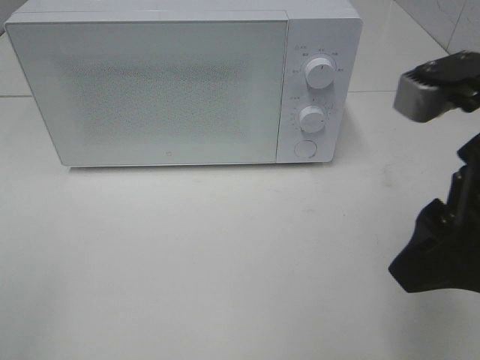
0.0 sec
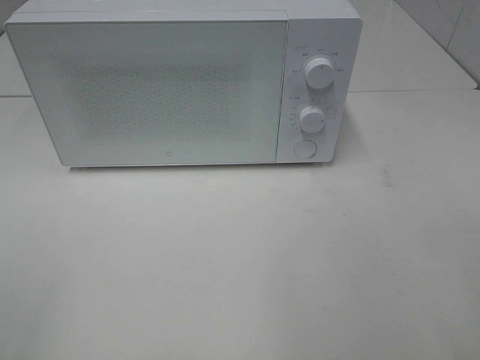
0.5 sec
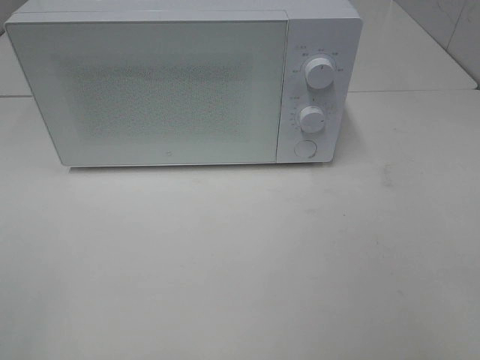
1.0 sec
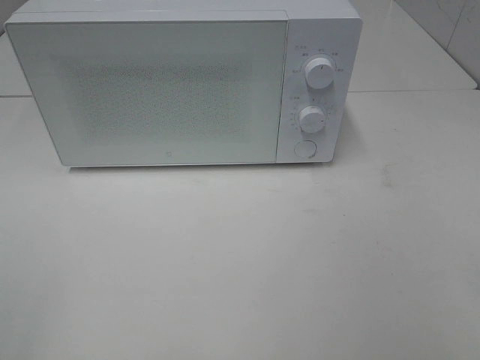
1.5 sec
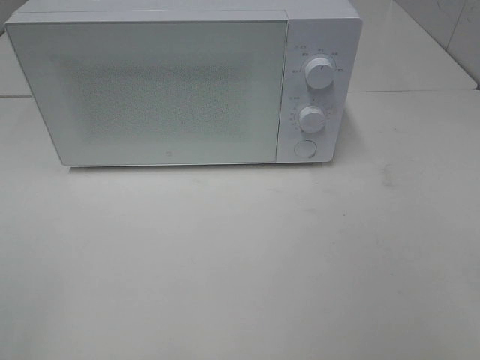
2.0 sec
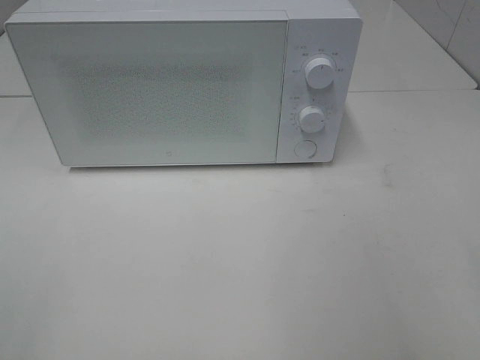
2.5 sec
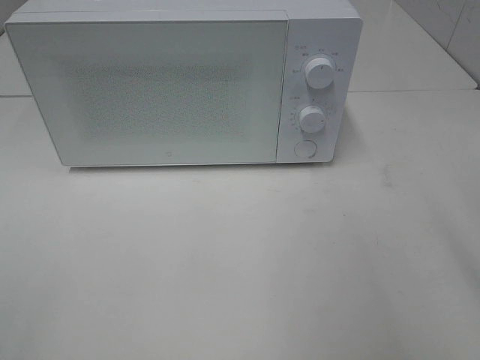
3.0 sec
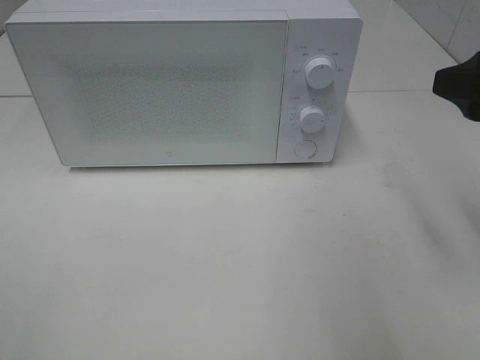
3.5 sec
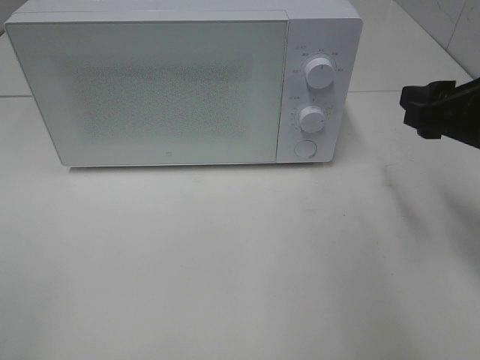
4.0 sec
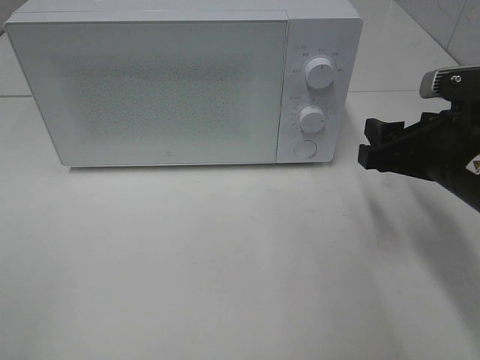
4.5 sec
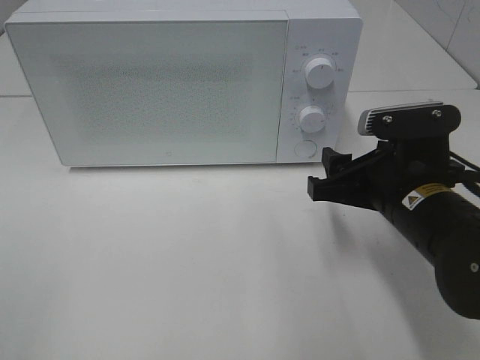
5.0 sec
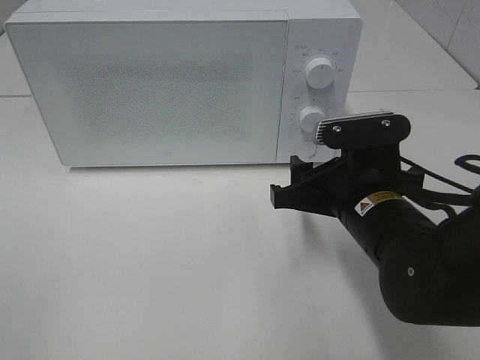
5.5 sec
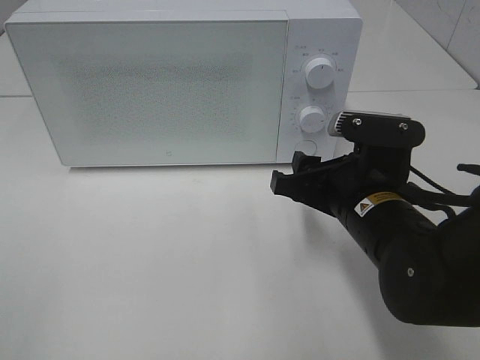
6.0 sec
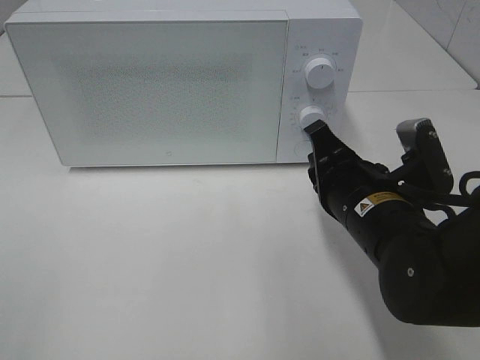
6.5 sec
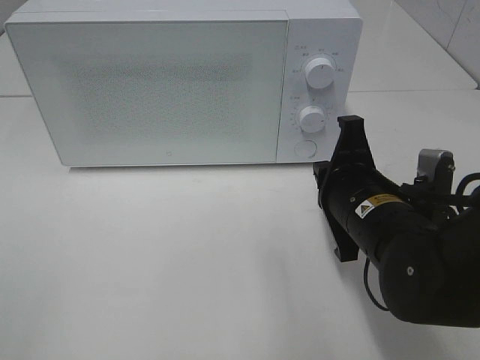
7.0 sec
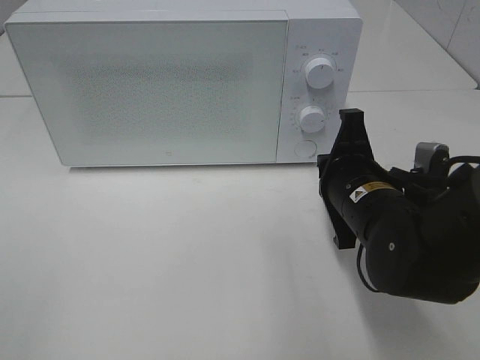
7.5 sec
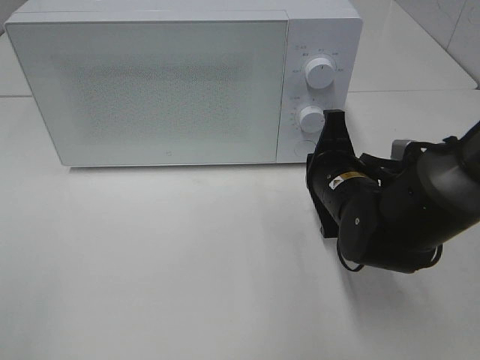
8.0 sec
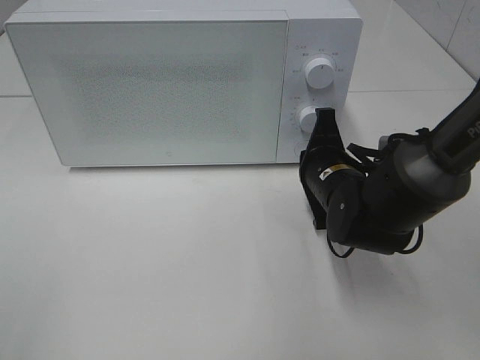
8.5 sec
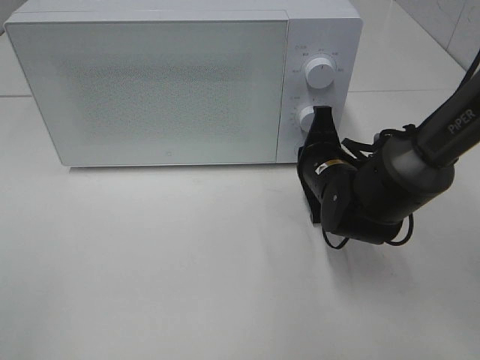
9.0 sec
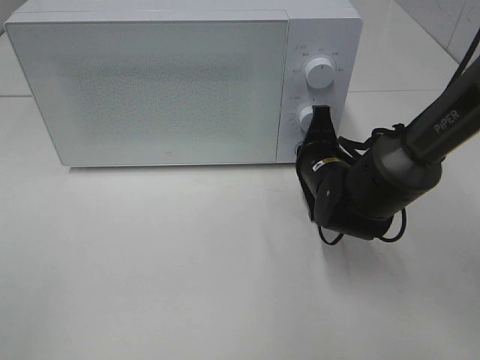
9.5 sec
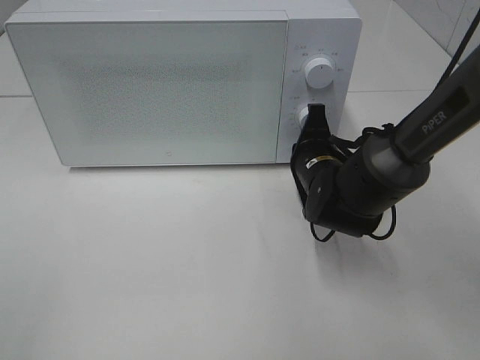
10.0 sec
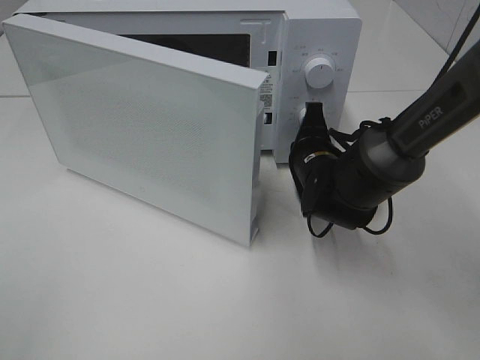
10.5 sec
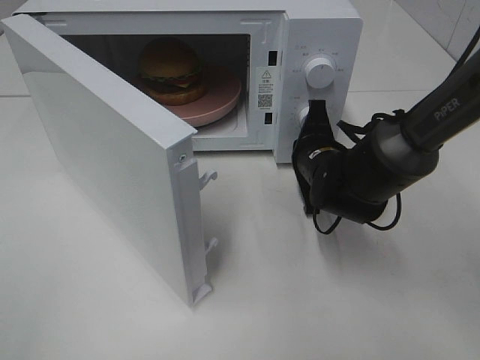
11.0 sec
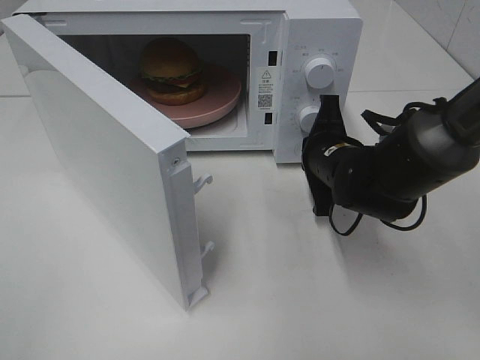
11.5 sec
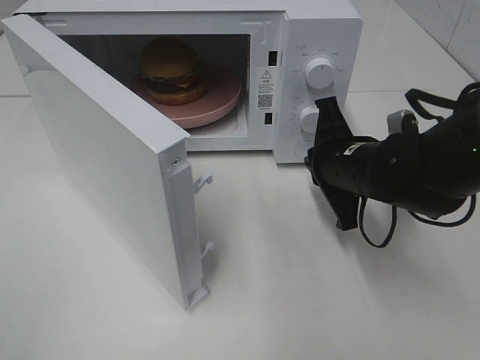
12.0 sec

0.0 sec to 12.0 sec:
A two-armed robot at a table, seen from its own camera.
Task of the whole recording: Heat the burger.
Step, 0.0 sec to 11.5 sec: Right hand: press the switch.
0.0 sec to 2.0 sec: The right gripper heads backward and to the right, covering approximately 20 cm.
2.0 sec to 4.0 sec: The right gripper travels forward by roughly 25 cm.
4.0 sec to 6.0 sec: The right gripper shifts approximately 15 cm to the left and downward.
6.0 sec to 8.0 sec: The right gripper shifts some 5 cm forward, and closes its fingers.
8.0 sec to 10.0 sec: The right gripper goes approximately 5 cm forward.
10.0 sec to 12.0 sec: The right gripper moves upward, approximately 5 cm.

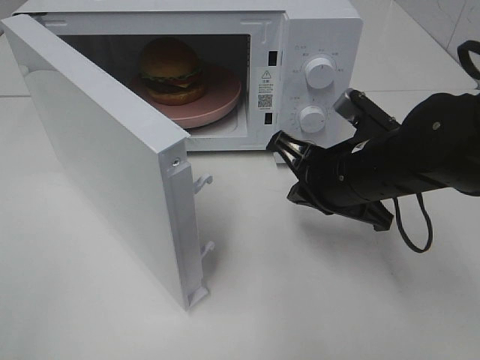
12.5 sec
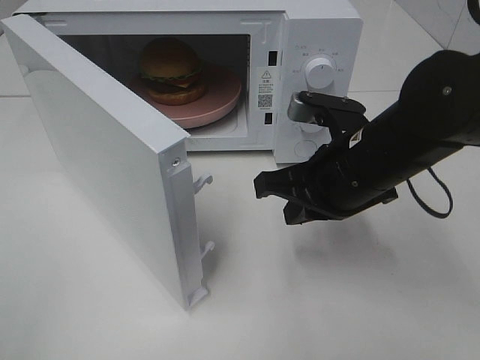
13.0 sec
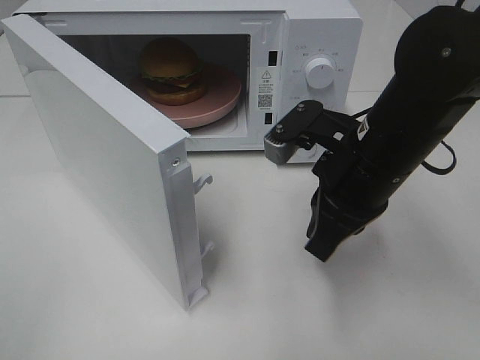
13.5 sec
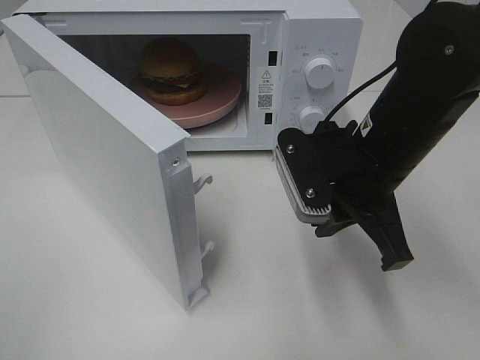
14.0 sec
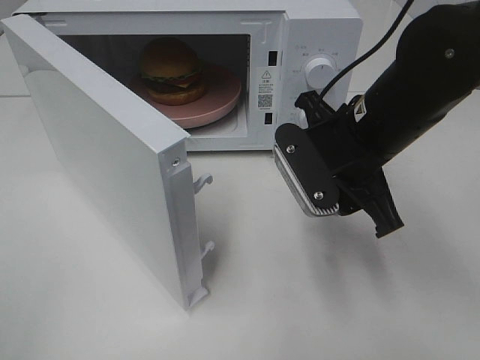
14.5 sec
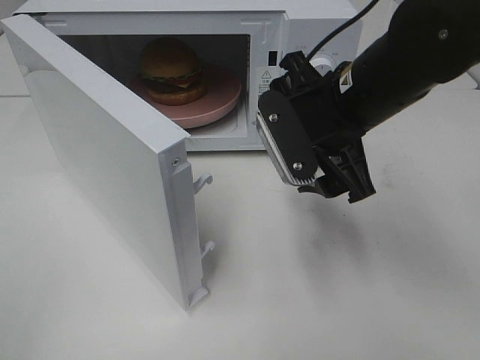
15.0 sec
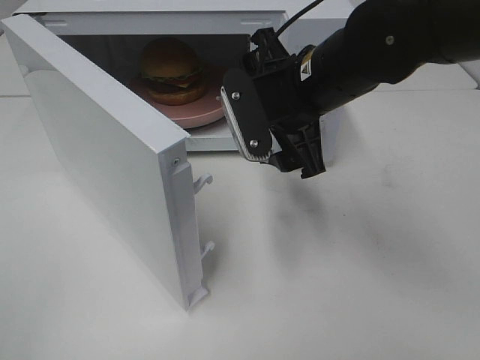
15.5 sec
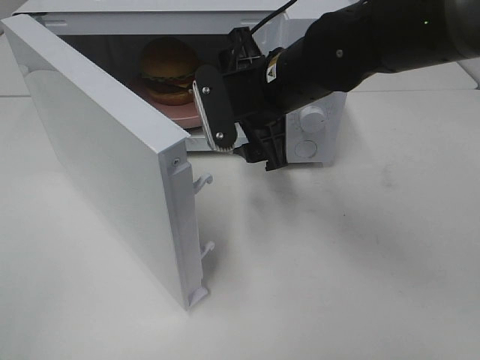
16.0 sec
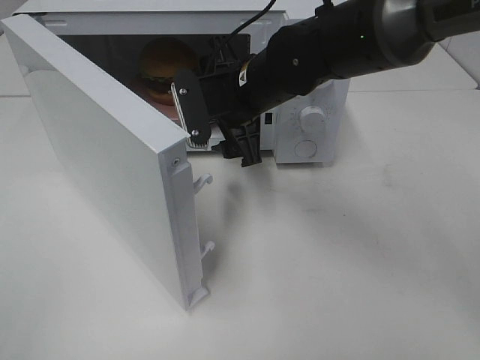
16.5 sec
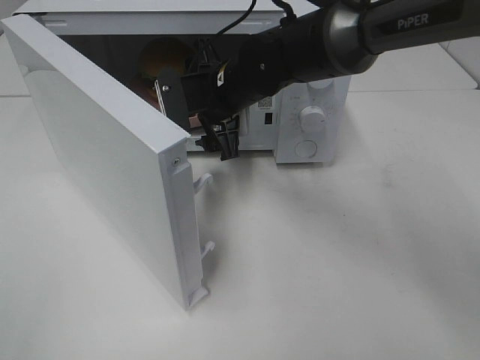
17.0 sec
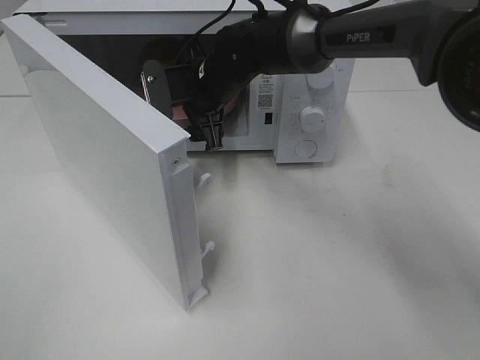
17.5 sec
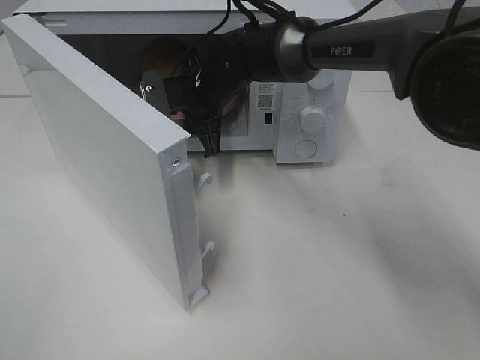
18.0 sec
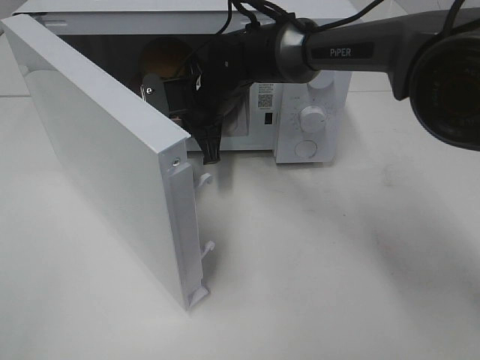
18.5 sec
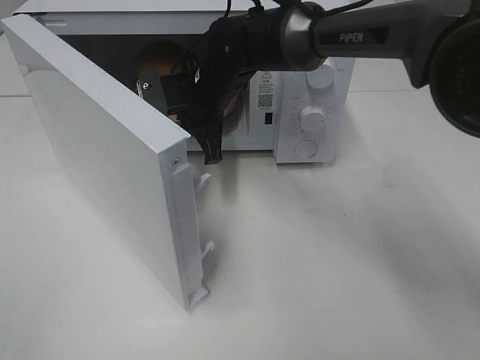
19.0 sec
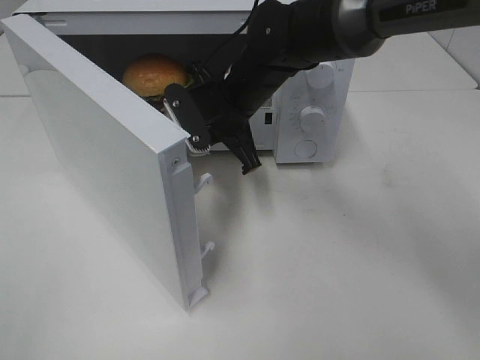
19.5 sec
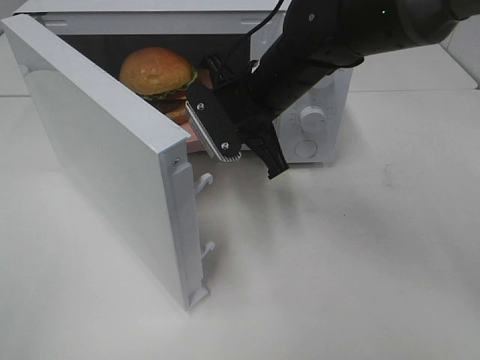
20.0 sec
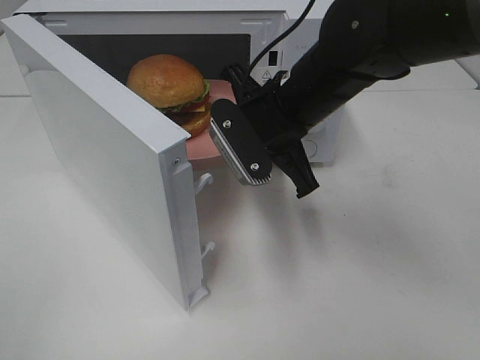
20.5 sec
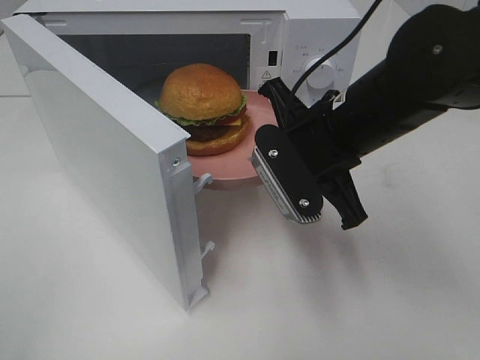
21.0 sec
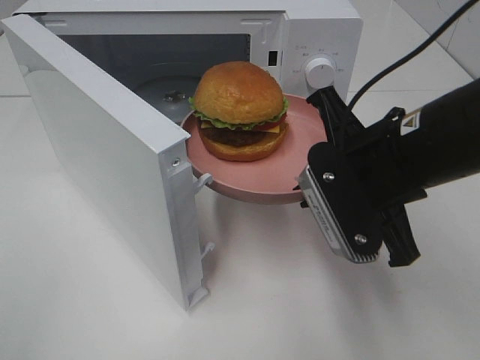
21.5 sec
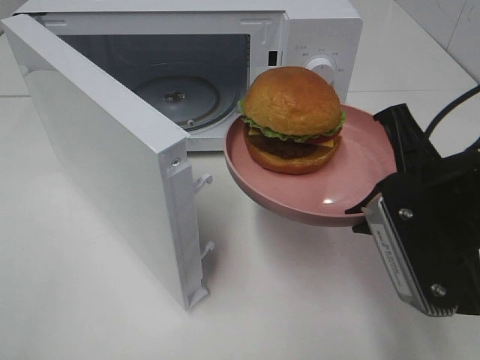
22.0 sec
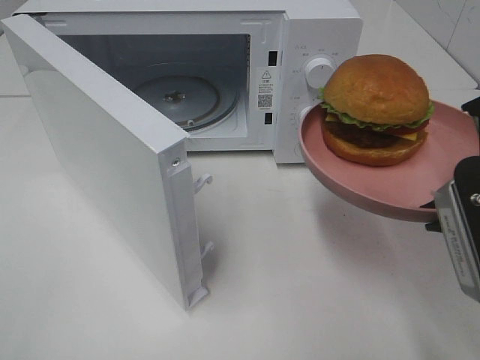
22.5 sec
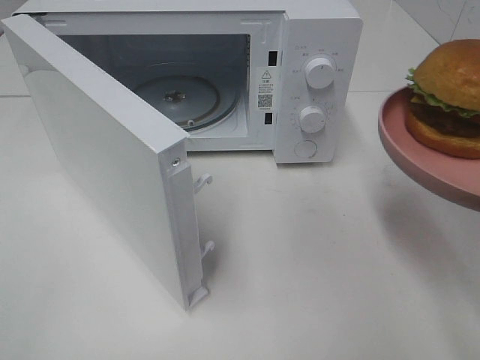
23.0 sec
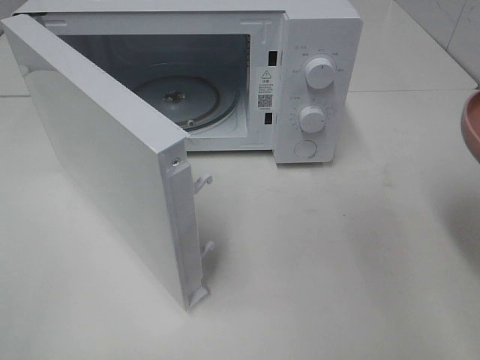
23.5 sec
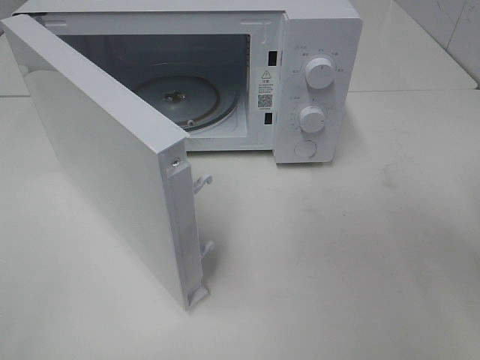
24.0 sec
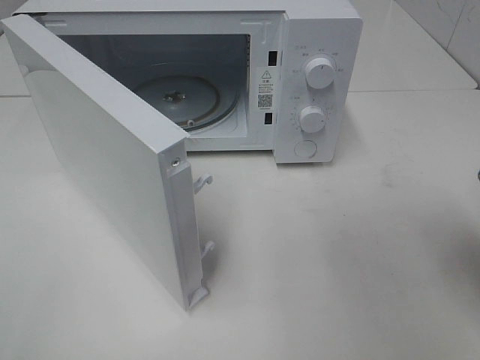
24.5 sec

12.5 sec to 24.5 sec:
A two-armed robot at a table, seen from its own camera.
Task of the whole recording: Heat the burger.
Step, 12.5 sec to 18.0 sec: Right hand: grab the plate with the hamburger.
12.5 sec to 14.5 sec: The right gripper shifts by about 5 cm, and opens its fingers.
14.5 sec to 16.5 sec: The right gripper travels forward and to the left by some 15 cm.
16.5 sec to 18.5 sec: The right gripper moves forward, approximately 5 cm, and closes.
18.5 sec to 20.5 sec: The right gripper is displaced backward, to the right and upward by some 15 cm.
20.5 sec to 22.5 sec: The right gripper heads backward and to the right, covering approximately 20 cm.
22.5 sec to 24.5 sec: The right gripper changes place by some 5 cm.

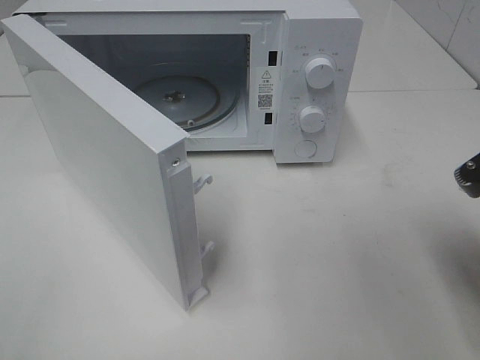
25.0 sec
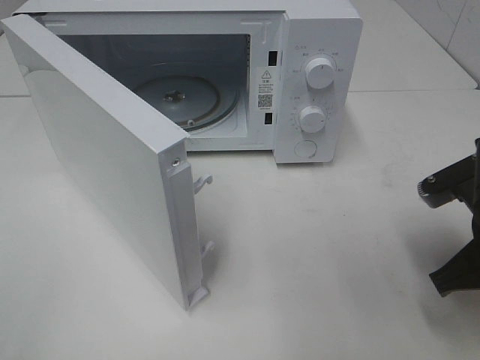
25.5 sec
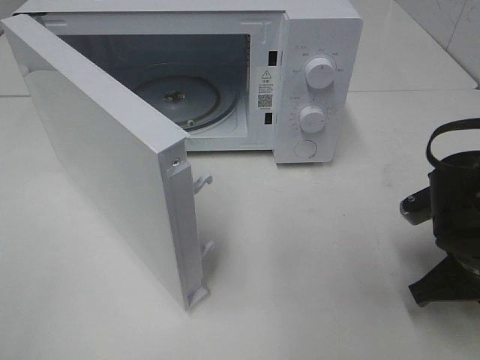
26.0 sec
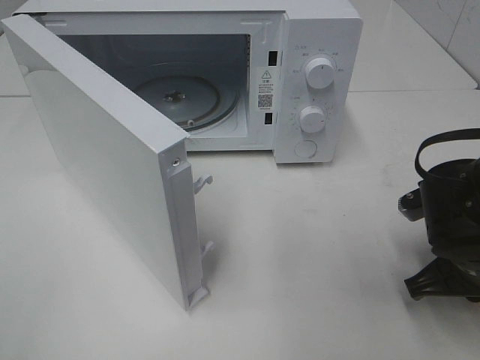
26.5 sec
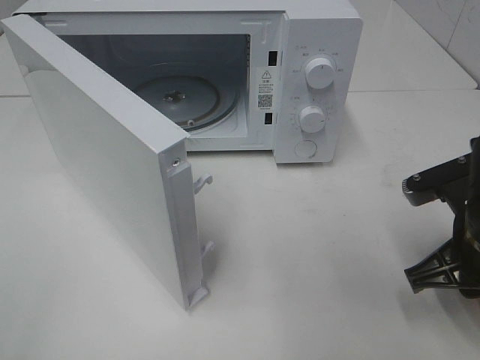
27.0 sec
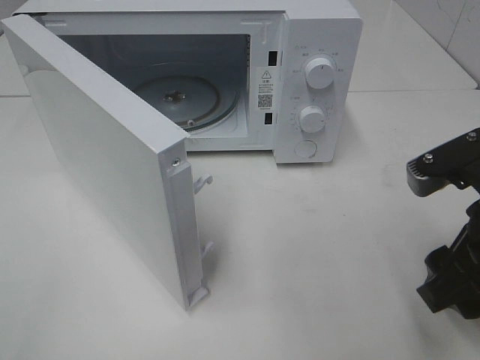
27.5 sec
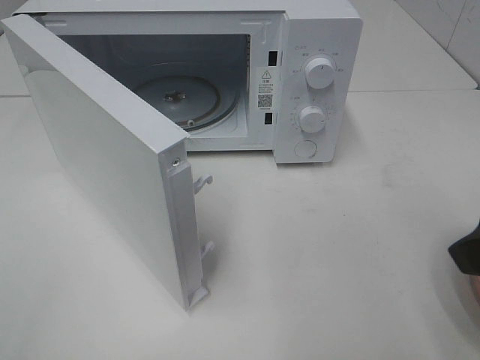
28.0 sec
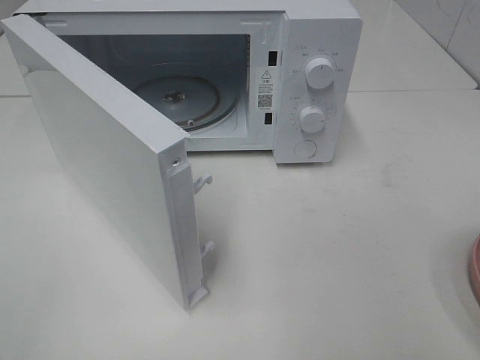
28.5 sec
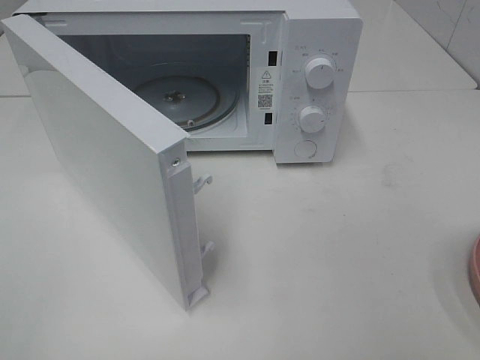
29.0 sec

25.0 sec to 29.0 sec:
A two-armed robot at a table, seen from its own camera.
Task of the whole recording: Heat the burger.
25.0 sec to 27.0 sec: The right gripper heads downward, covering about 5 cm.
27.0 sec to 29.0 sec: The right gripper goes some 25 cm backward, upward and to the right, and opens up.
